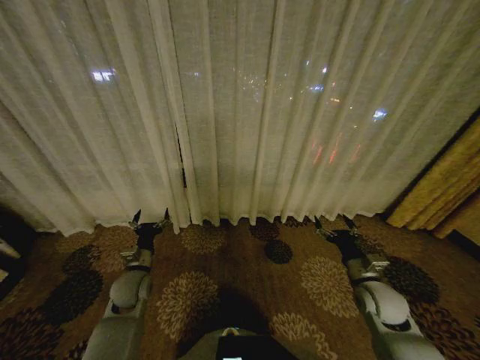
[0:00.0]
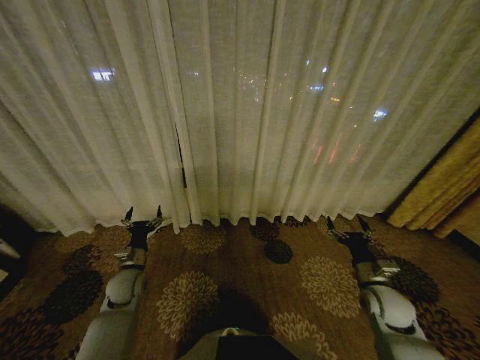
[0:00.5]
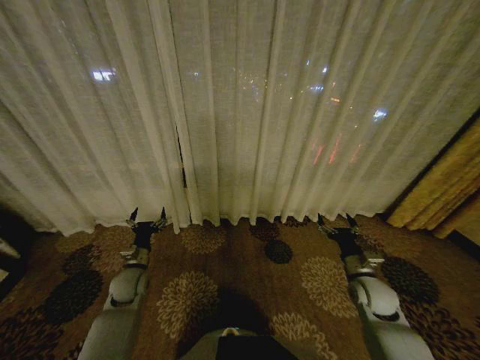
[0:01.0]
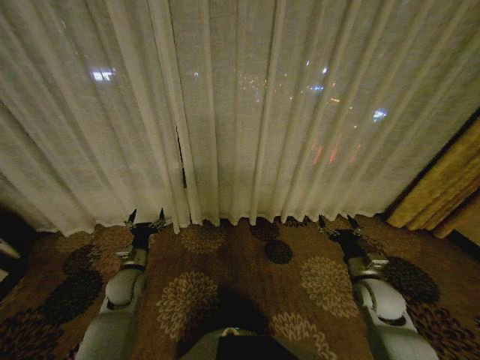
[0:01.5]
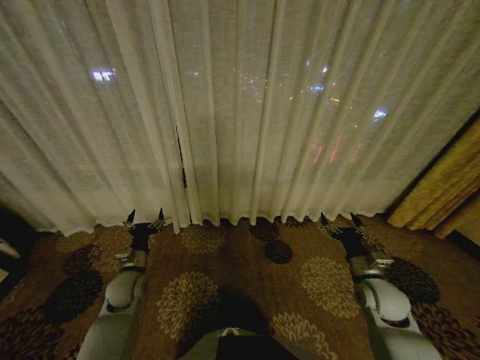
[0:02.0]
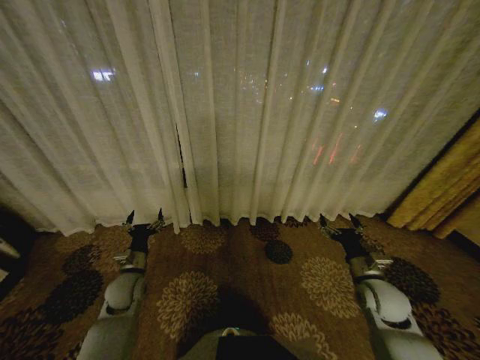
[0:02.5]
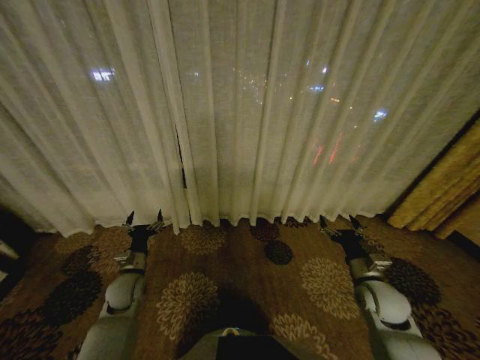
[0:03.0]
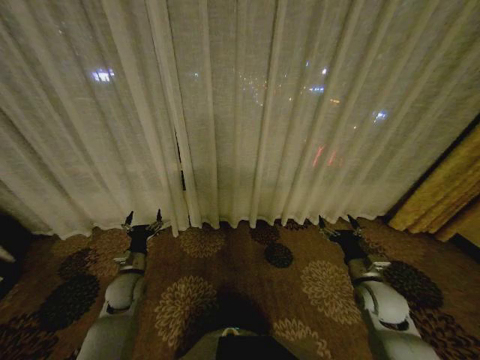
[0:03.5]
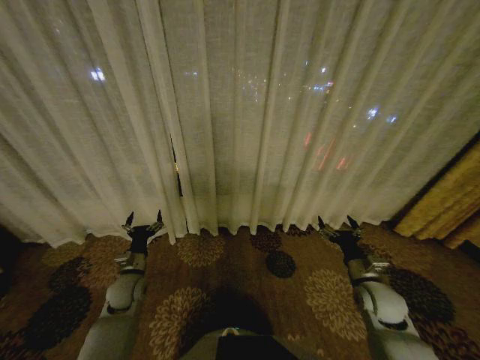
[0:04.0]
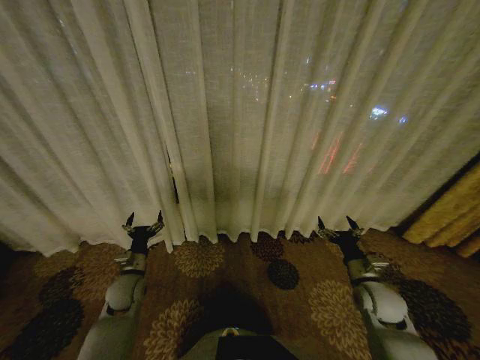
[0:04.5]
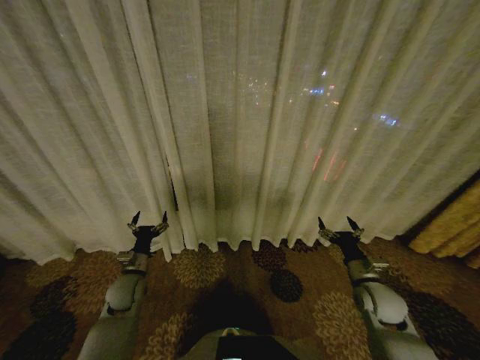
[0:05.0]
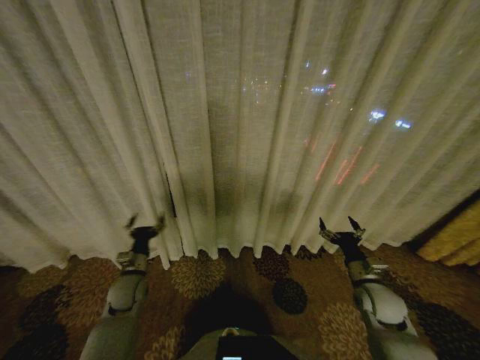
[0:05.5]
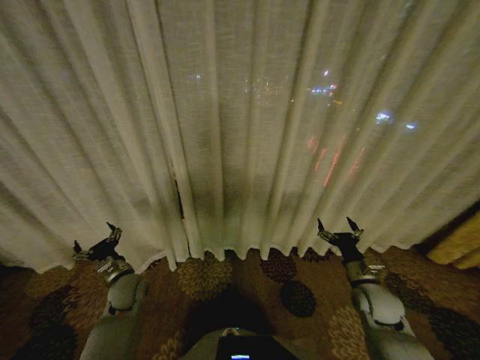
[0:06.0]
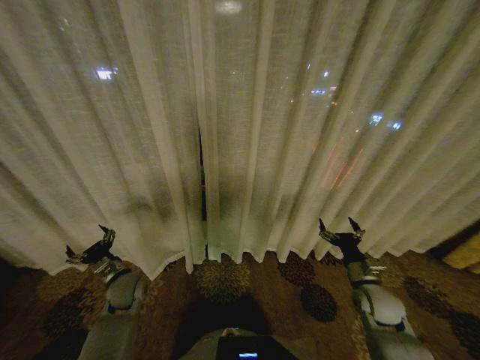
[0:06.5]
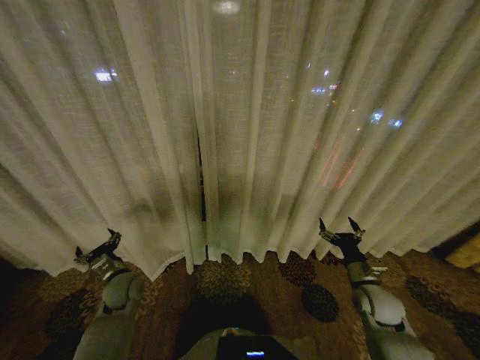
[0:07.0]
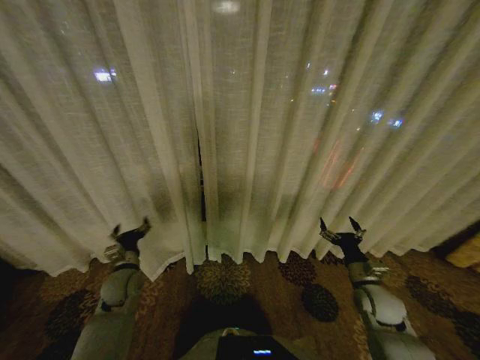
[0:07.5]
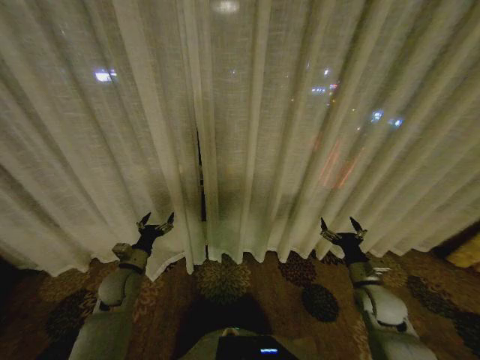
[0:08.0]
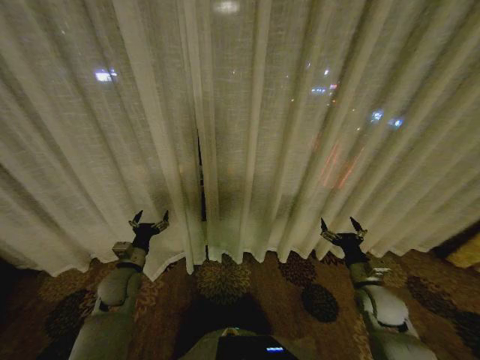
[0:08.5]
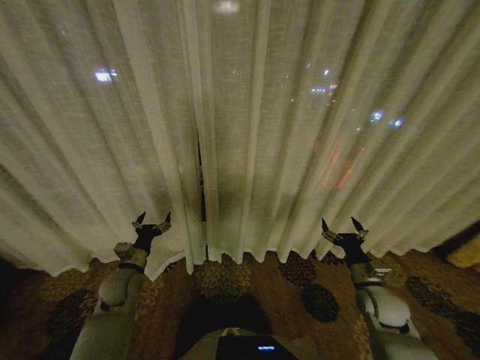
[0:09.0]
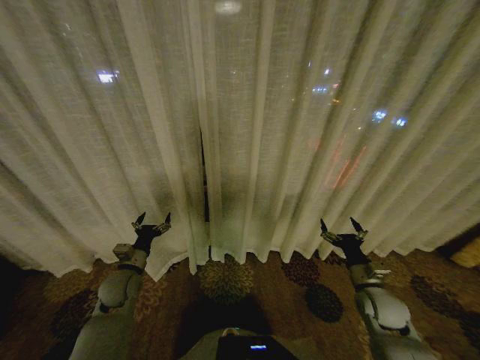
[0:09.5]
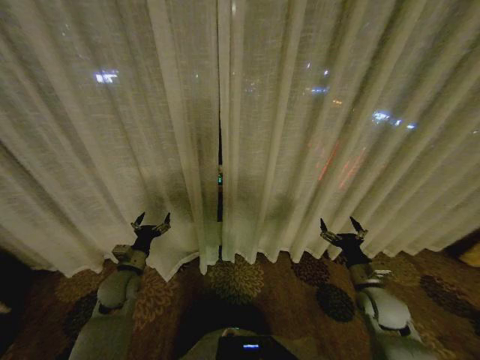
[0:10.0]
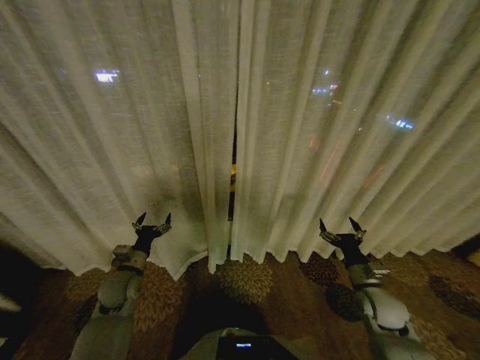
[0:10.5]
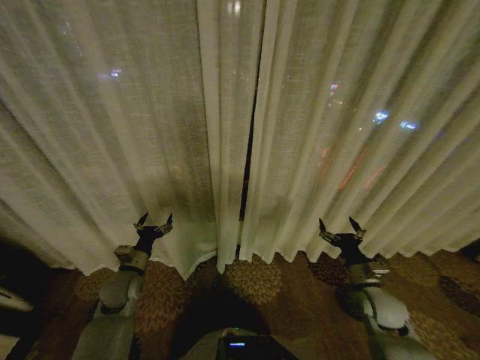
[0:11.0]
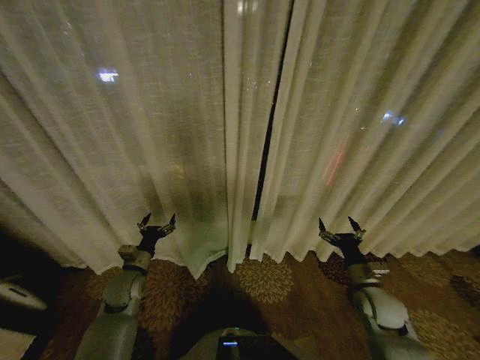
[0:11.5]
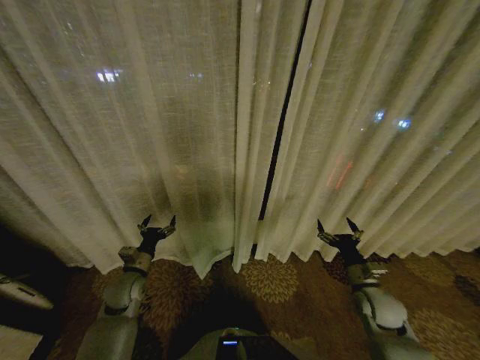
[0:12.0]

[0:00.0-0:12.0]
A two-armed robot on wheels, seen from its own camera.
Task of the whole recording: Open the curtains by pulling them apart, changing their state from closed to fully open.
2.0 to 4.0 s: The grippers move only a little.
8.0 to 10.0 s: The grippers move only a little.

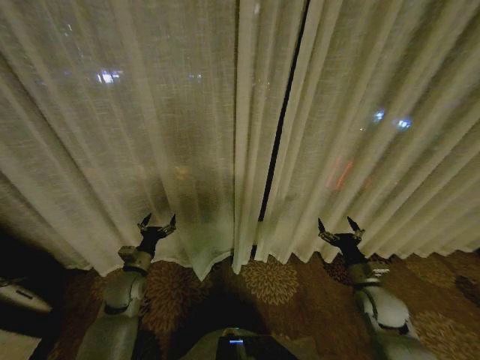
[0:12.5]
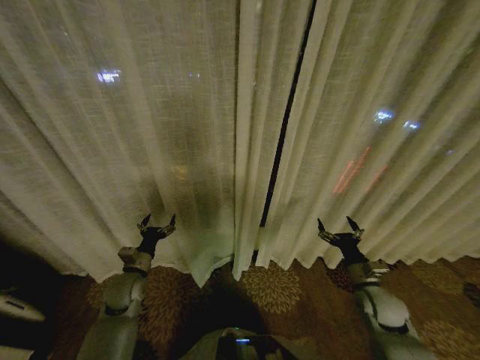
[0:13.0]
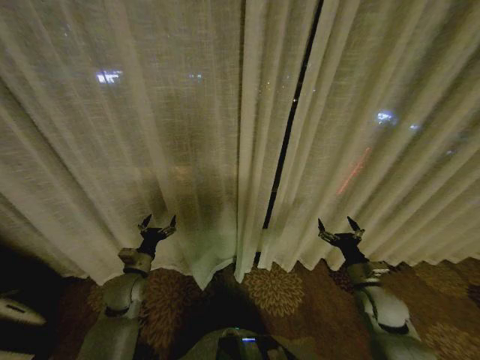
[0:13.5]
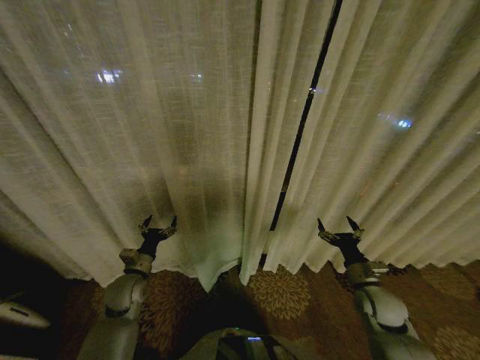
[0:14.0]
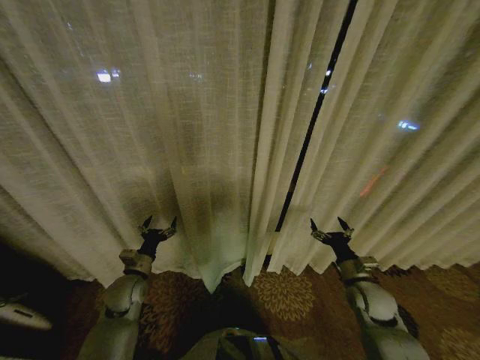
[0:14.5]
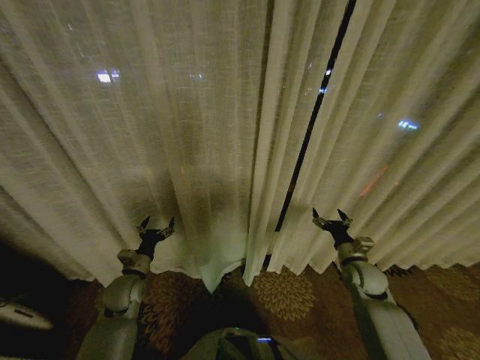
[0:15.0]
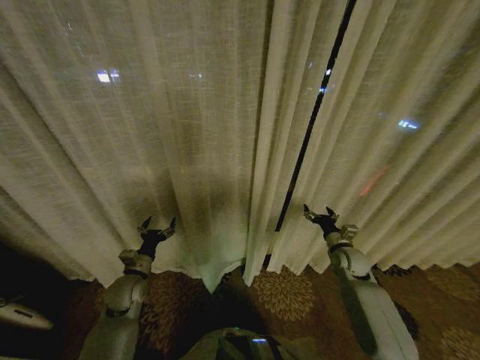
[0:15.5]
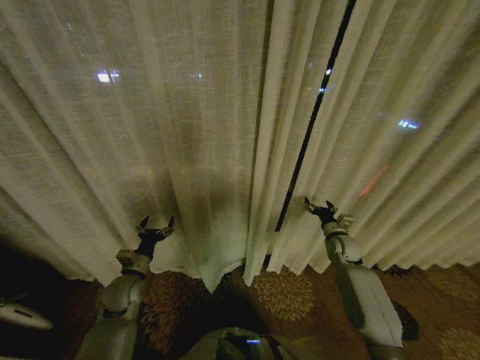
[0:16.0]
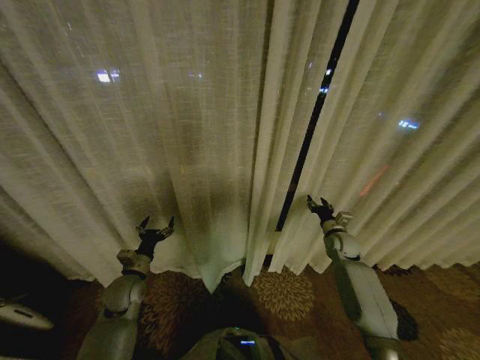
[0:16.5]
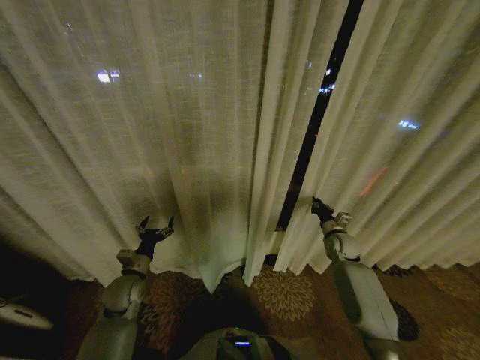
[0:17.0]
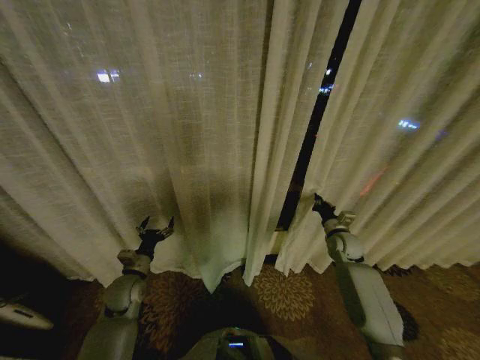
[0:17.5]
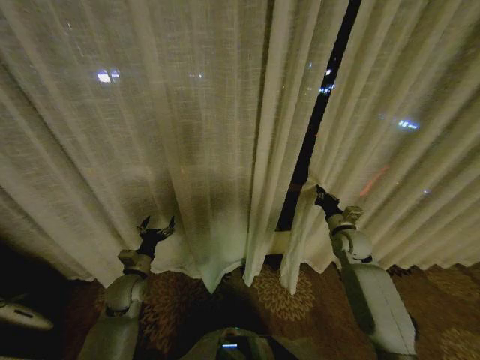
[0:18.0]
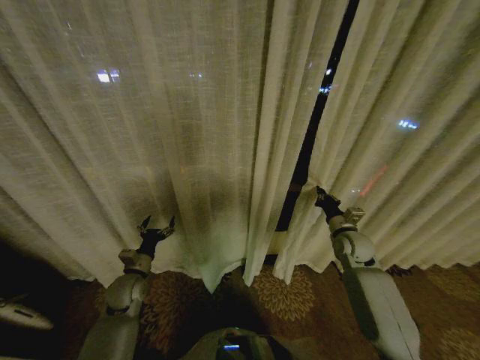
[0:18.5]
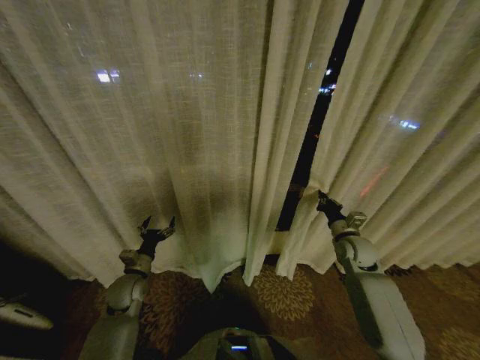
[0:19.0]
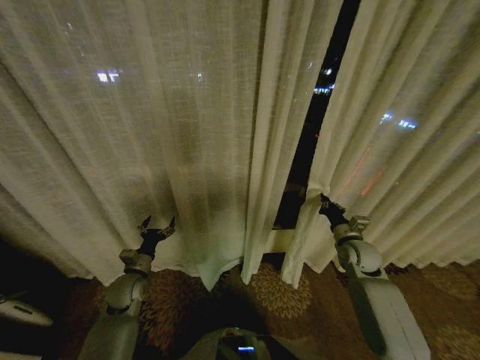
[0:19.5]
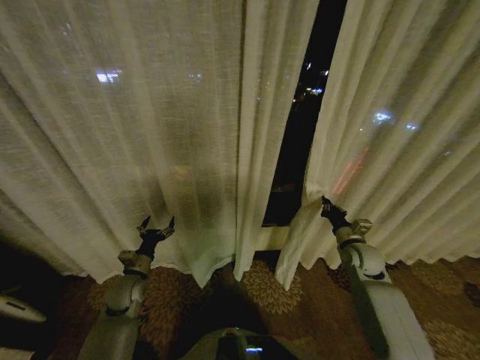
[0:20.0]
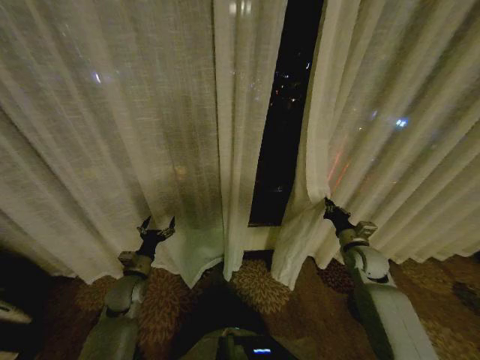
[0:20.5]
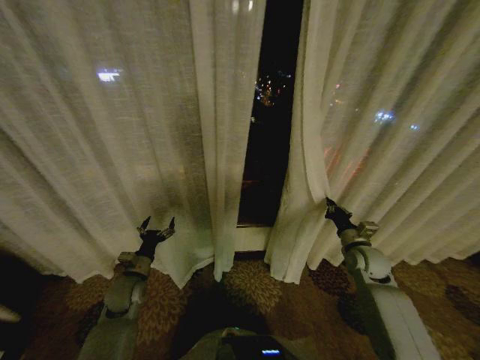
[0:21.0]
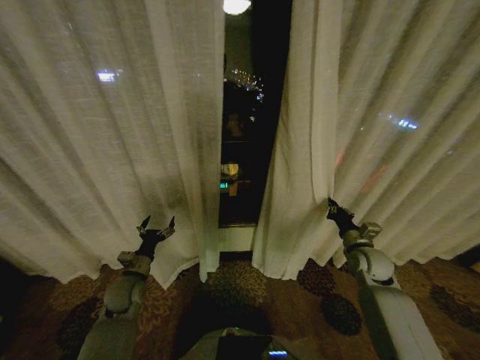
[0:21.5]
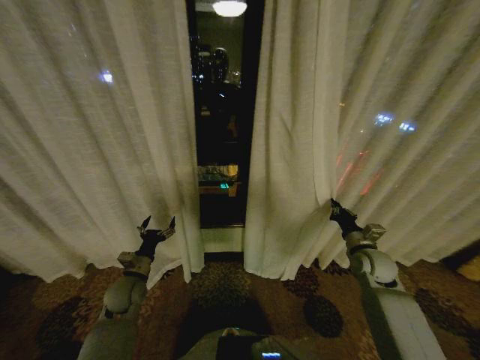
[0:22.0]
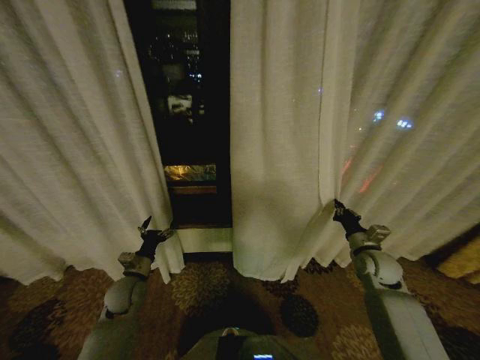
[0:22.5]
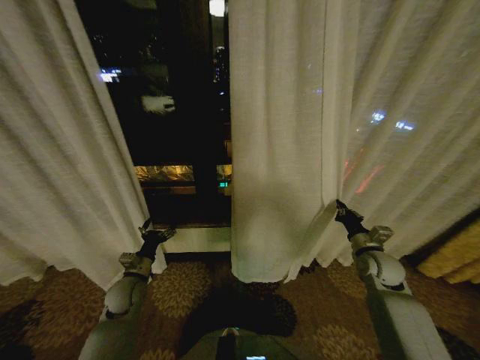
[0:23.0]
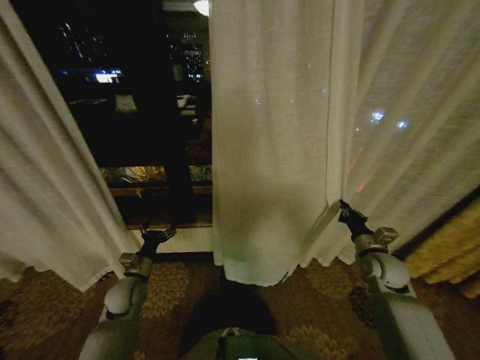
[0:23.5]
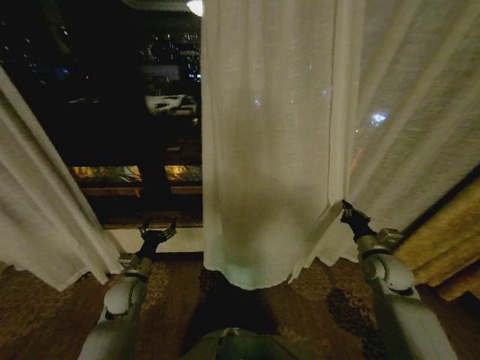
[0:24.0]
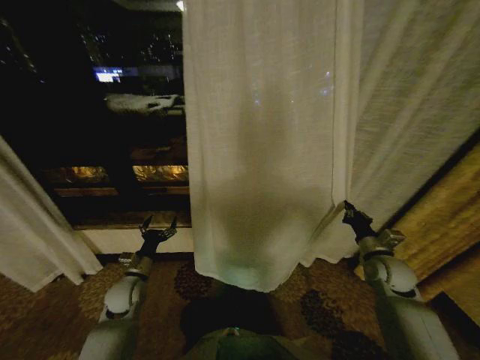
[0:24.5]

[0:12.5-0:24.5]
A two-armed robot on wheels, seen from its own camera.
Task of the whole recording: Open the curtains by pulling them apart, changing their state from closed to fully open.
12.5 to 14.5 s: The grippers move only a little.
14.5 to 16.5 s: The right gripper is displaced forward by roughly 15 cm.
16.5 to 18.5 s: The right gripper moves upward, roughly 5 cm, and closes its fingers.
18.5 to 20.5 s: The right gripper changes place by about 5 cm.

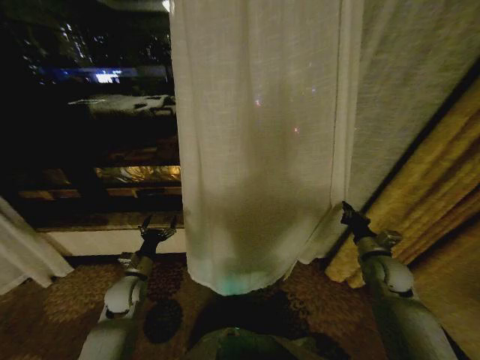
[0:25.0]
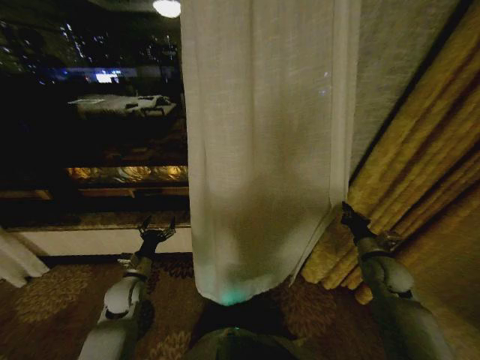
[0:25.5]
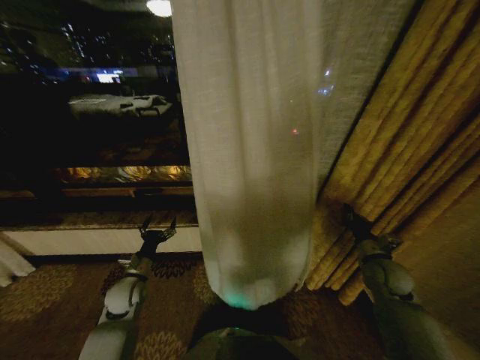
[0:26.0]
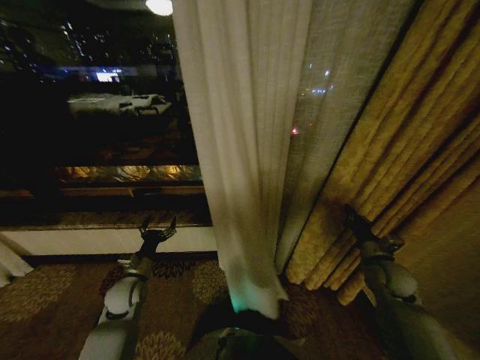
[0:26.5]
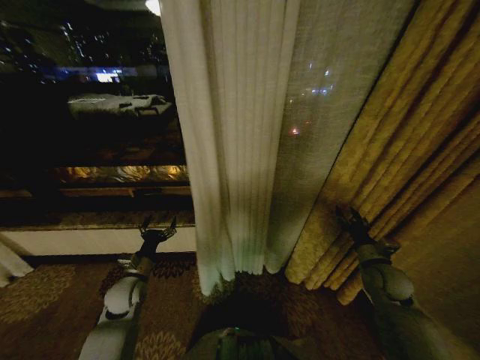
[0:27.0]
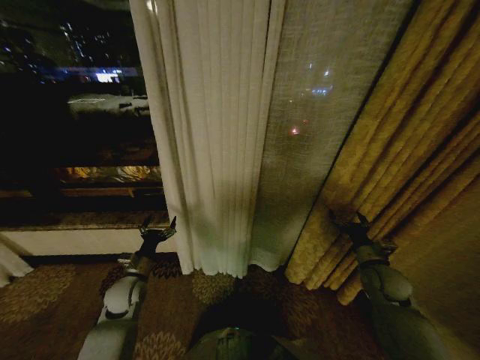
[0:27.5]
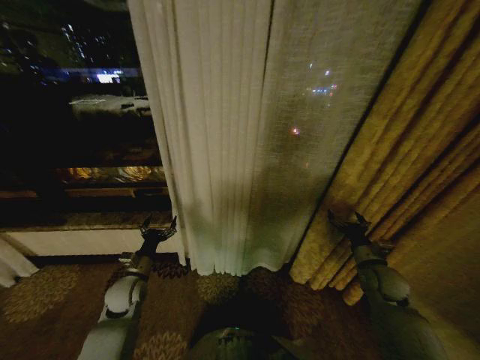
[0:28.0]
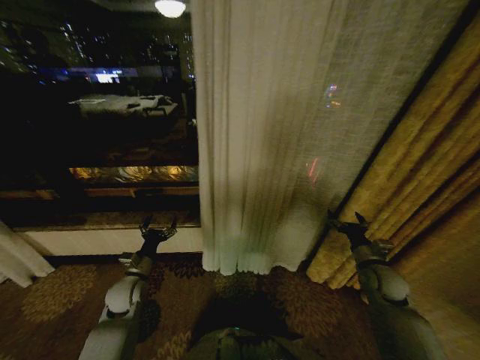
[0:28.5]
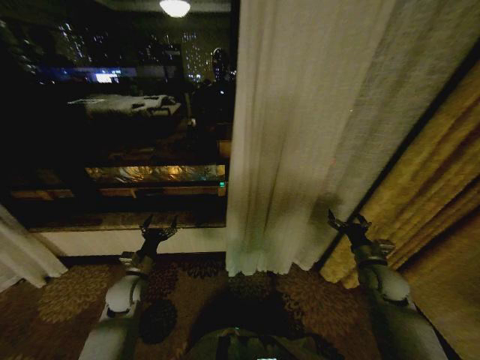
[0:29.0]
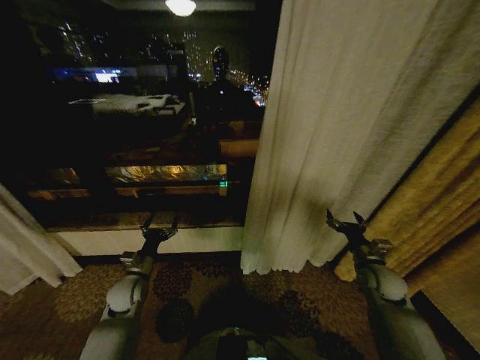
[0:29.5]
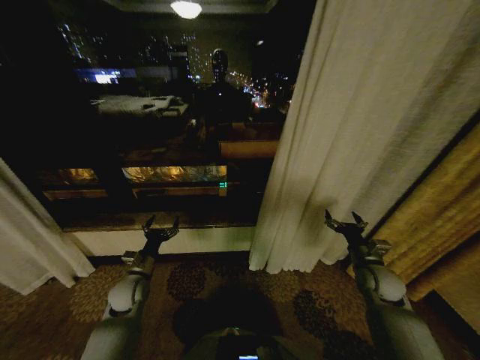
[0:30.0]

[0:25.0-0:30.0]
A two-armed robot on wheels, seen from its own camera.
Task of the whole recording: Open the curtains by pulling them apart, changing their state from closed to fully open.
25.0 to 27.5 s: The right gripper opens its fingers.
